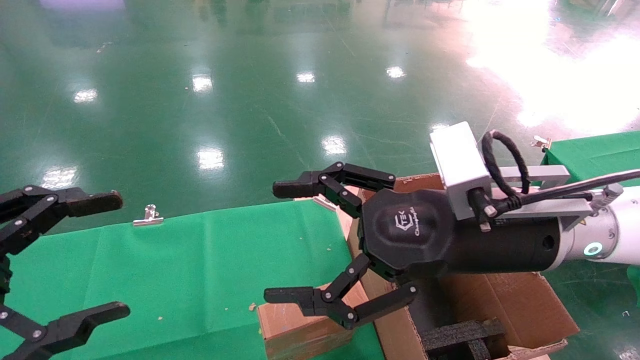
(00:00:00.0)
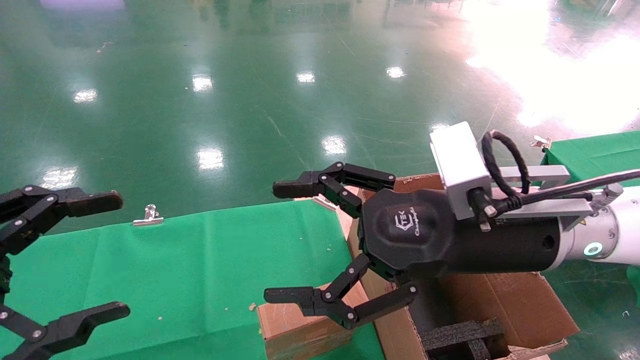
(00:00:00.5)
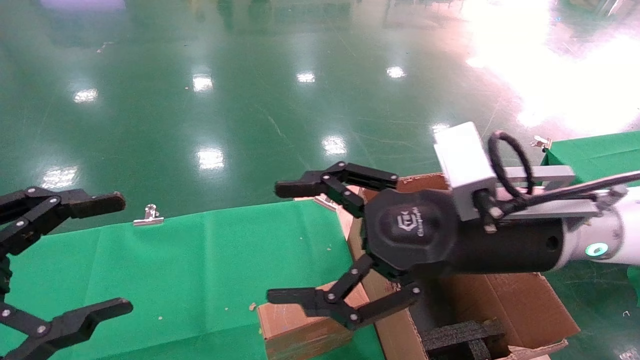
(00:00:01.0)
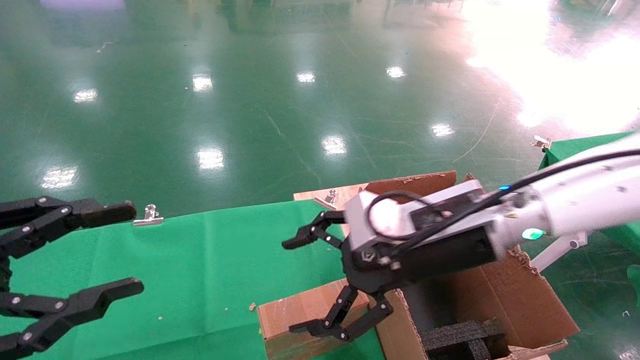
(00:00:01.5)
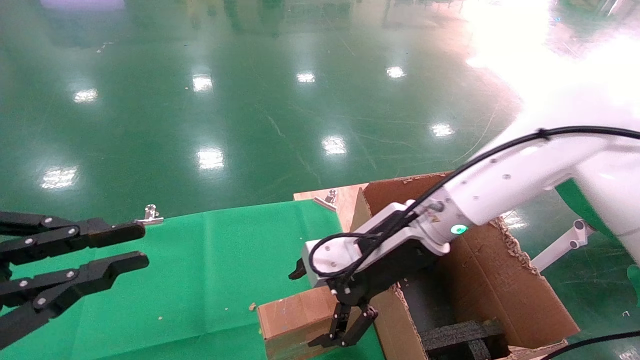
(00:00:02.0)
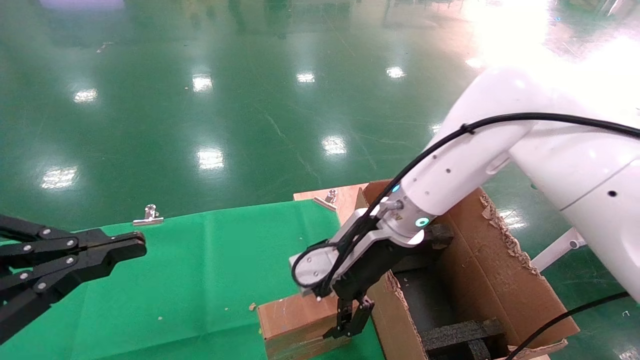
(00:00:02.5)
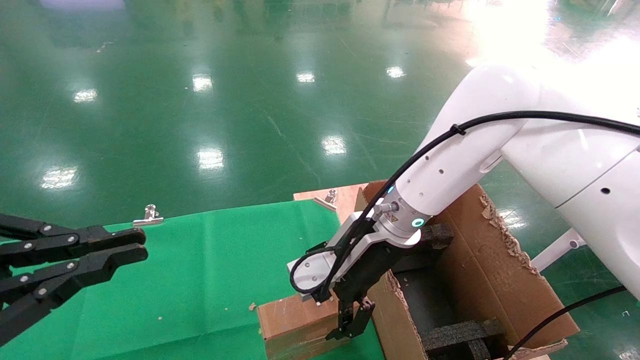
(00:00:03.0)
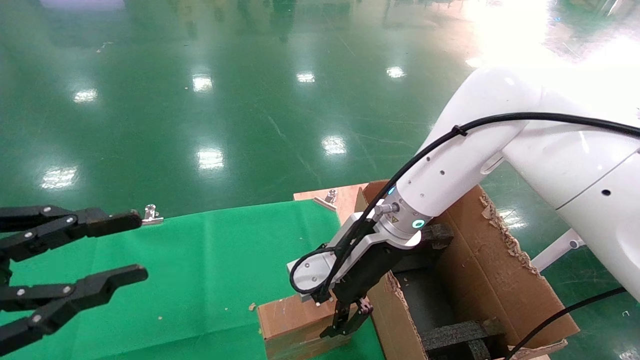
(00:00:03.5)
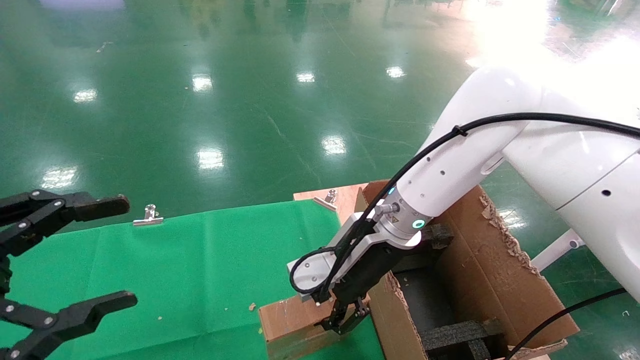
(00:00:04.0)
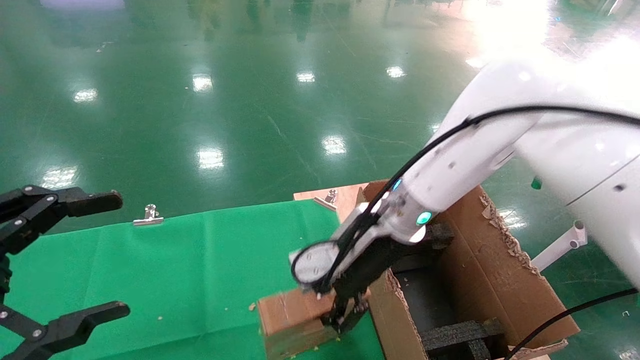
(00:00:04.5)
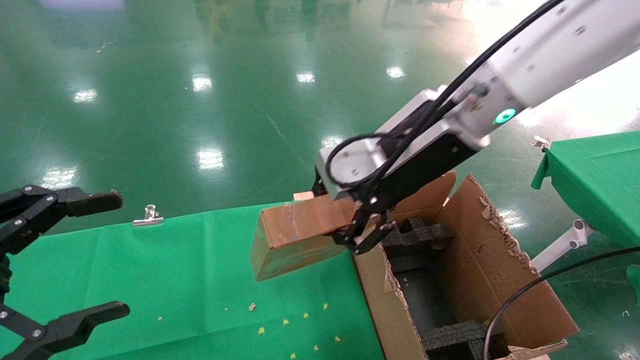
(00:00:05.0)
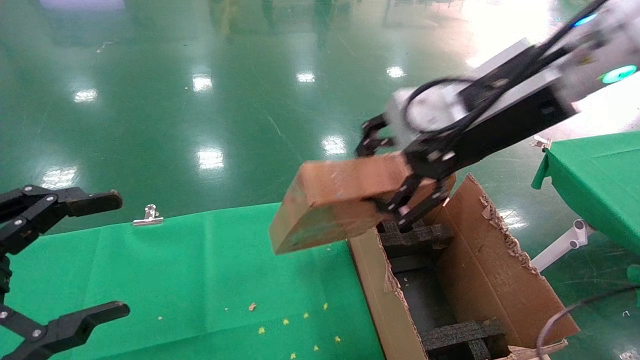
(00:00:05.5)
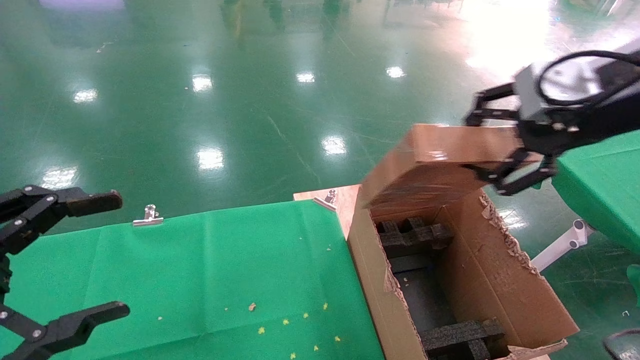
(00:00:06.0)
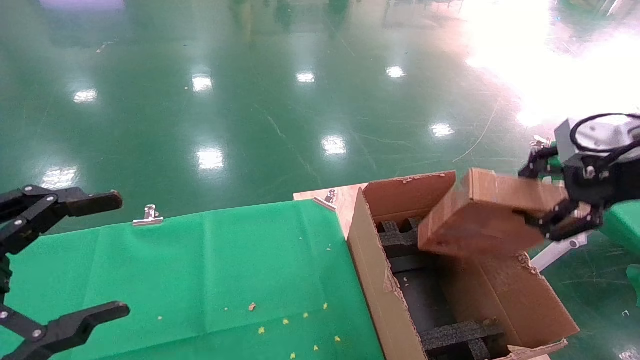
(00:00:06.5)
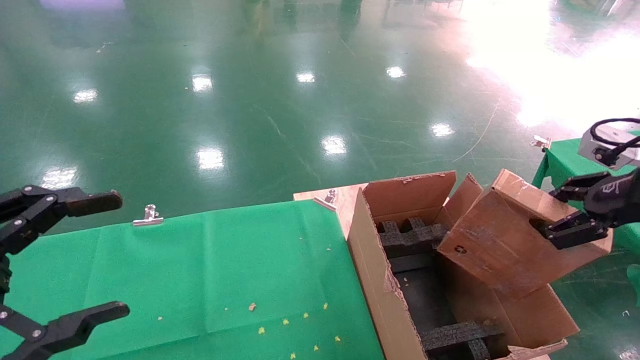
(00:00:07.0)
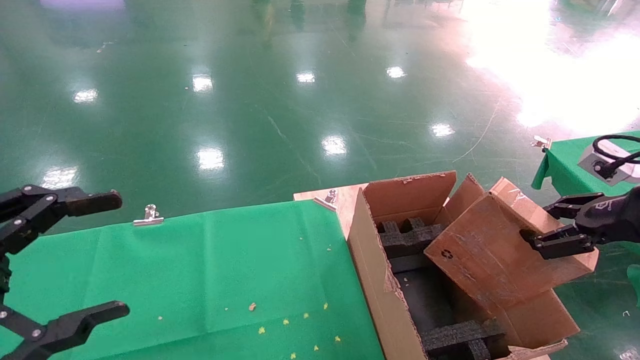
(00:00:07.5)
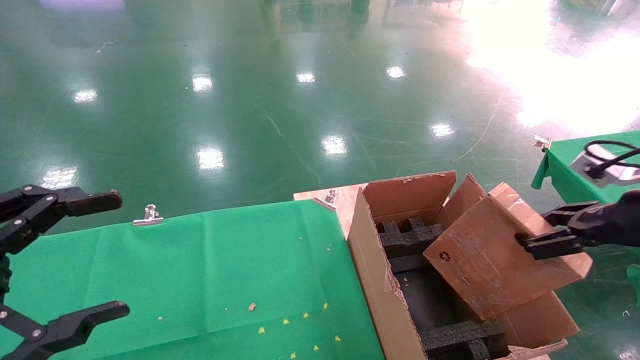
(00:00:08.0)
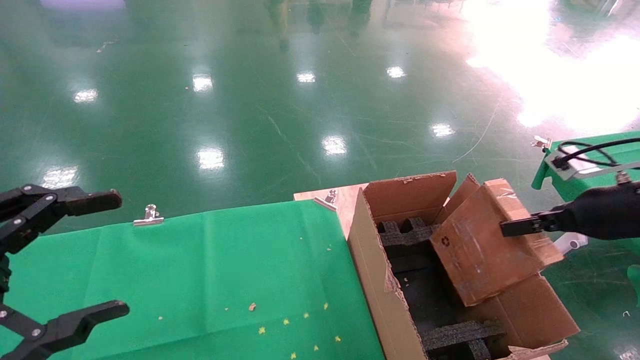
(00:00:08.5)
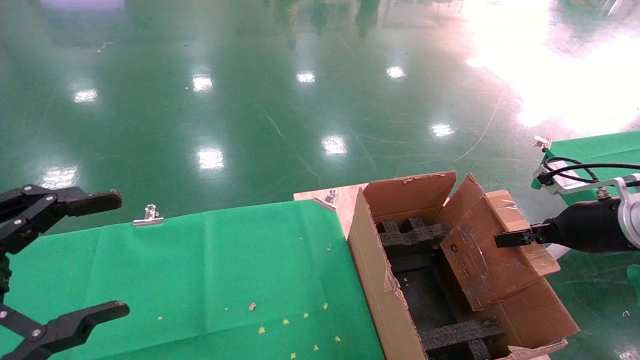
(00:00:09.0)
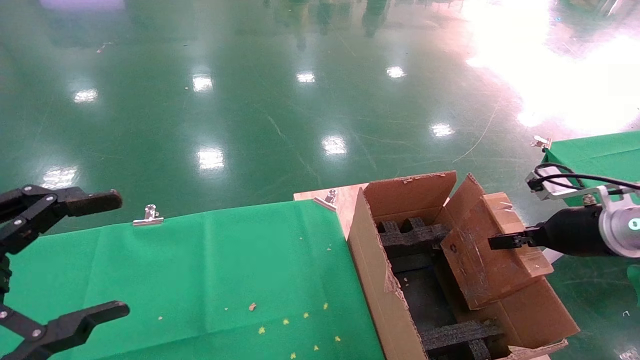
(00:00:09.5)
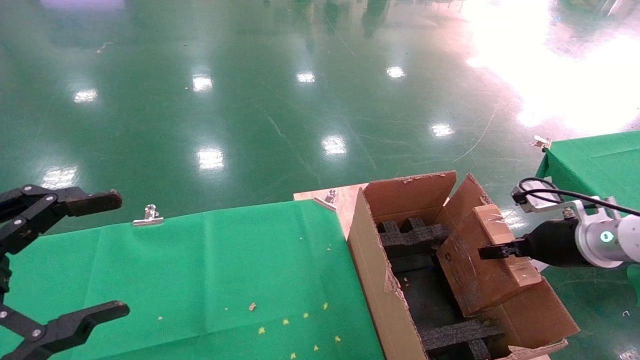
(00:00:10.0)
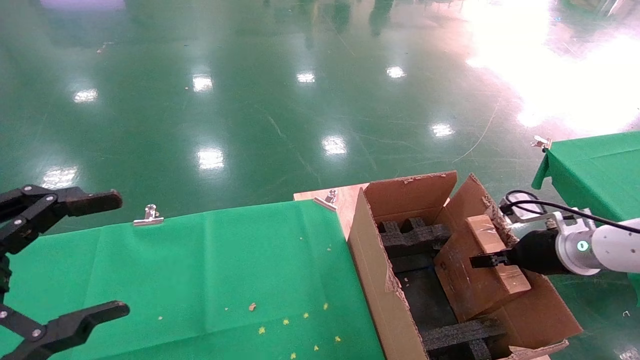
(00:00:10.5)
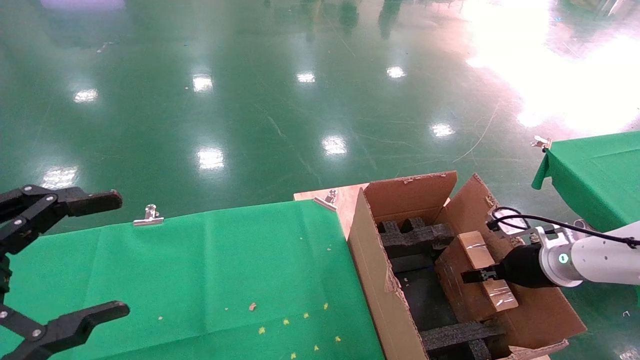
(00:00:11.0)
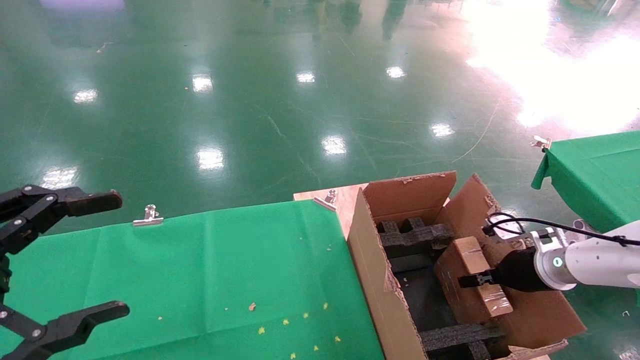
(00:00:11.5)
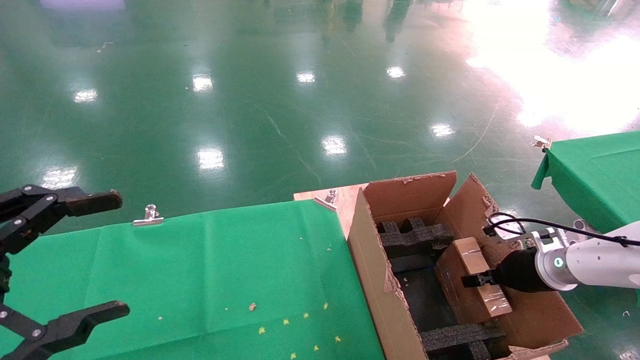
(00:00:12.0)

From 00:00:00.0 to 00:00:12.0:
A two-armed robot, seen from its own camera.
Task of the whole recording: using a robotic arm to pick up a cardboard box and palace it the carton.
Step, from 00:00:01.5 to 00:00:04.0: Pick up the mouse and the power cord paper box.
From 00:00:00.0 to 00:00:02.0: The right gripper moves forward and to the left, approximately 10 cm. Meanwhile the left gripper closes its fingers.
From 00:00:02.0 to 00:00:04.0: The left gripper opens. The right gripper closes.
From 00:00:04.0 to 00:00:06.0: The right gripper travels to the right, upward and backward by roughly 30 cm.
From 00:00:06.0 to 00:00:08.0: The right gripper moves downward and to the right, about 20 cm.
From 00:00:08.0 to 00:00:10.0: The right gripper moves downward and forward, about 15 cm.
From 00:00:10.0 to 00:00:12.0: The right gripper goes about 10 cm downward.

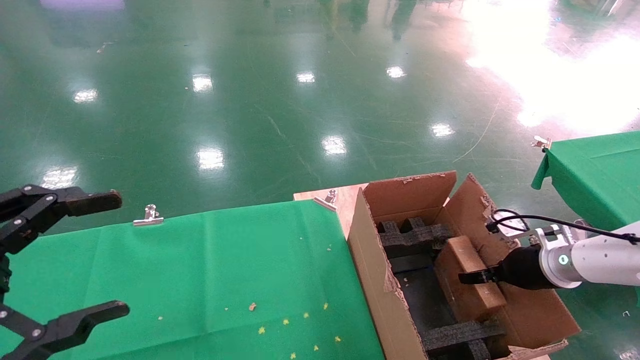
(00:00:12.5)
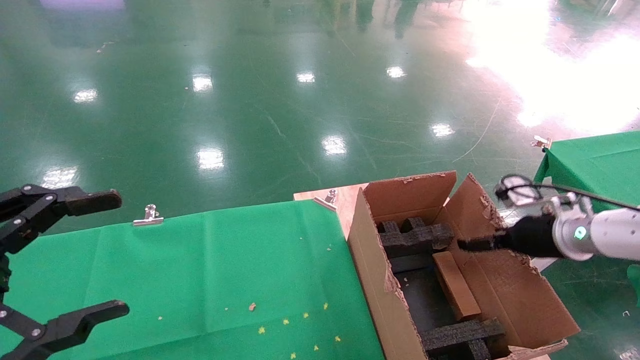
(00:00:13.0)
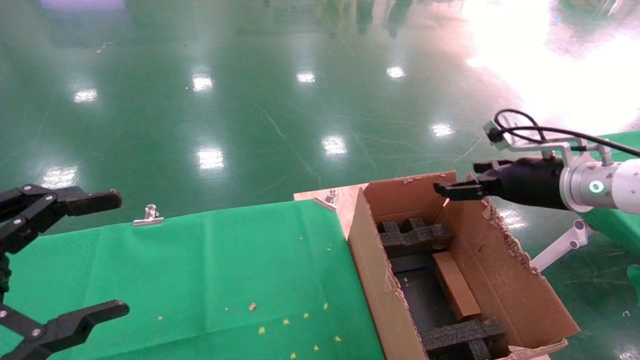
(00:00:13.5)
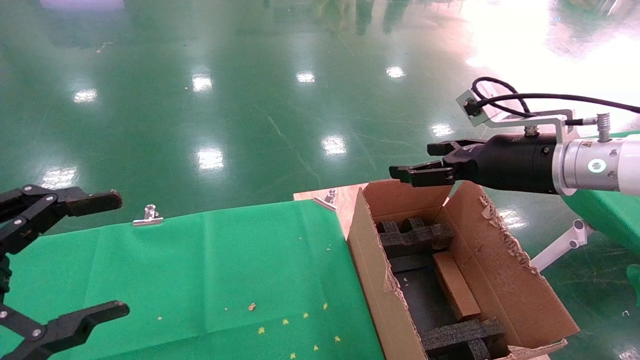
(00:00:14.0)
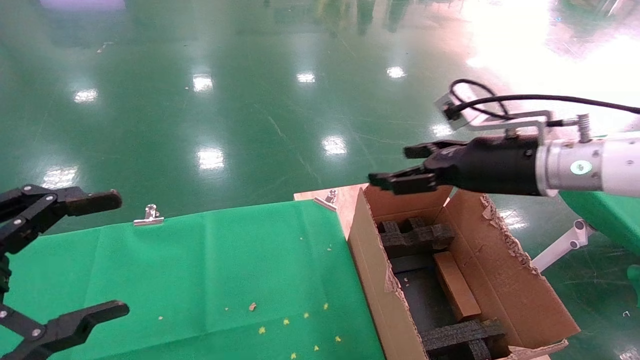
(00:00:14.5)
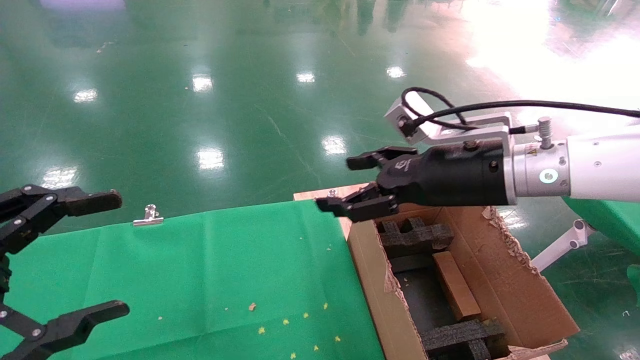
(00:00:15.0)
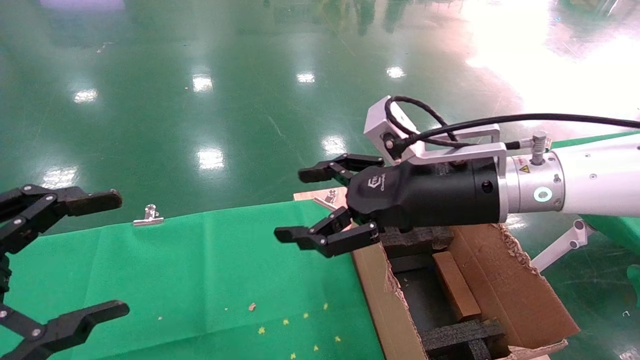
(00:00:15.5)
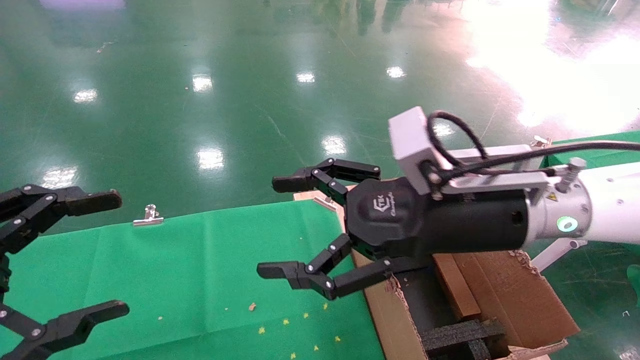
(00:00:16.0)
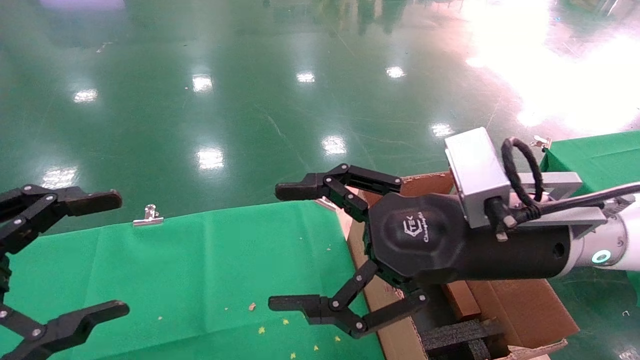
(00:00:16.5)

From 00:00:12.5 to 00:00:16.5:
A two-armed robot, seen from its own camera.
Task of the whole recording: using a robotic arm to pick up a cardboard box and palace it the carton.
From 00:00:12.5 to 00:00:14.5: The right gripper is displaced upward and to the left by roughly 25 cm, and opens its fingers.
From 00:00:14.5 to 00:00:16.5: The right gripper heads to the left and backward, covering approximately 15 cm.
